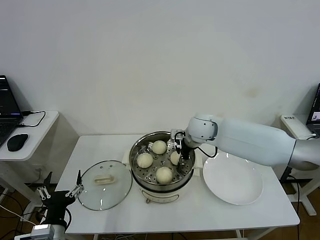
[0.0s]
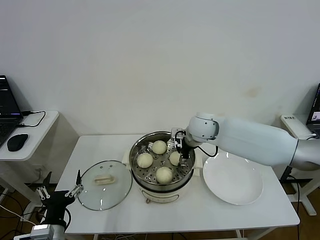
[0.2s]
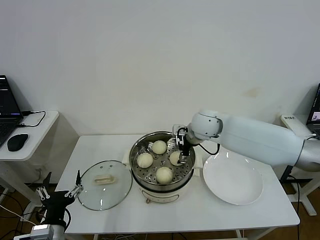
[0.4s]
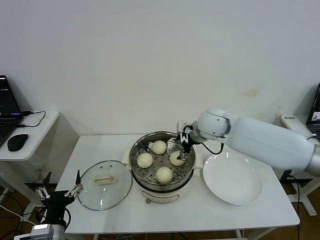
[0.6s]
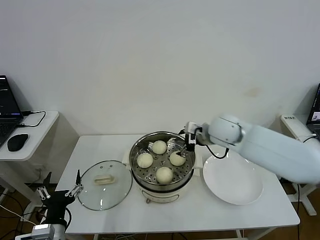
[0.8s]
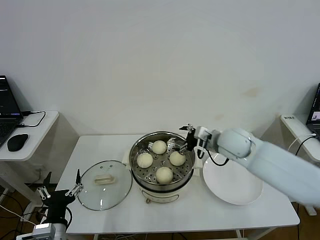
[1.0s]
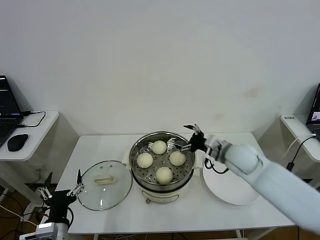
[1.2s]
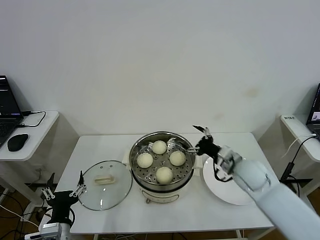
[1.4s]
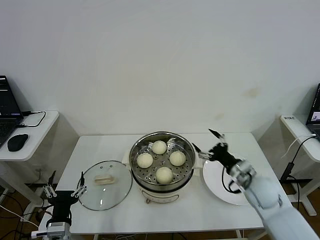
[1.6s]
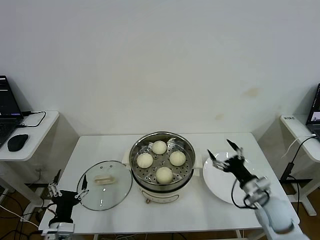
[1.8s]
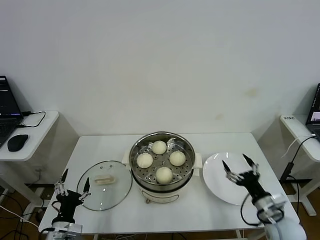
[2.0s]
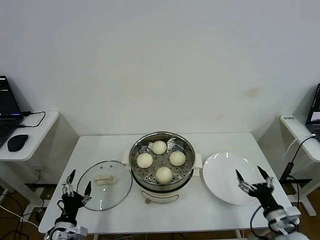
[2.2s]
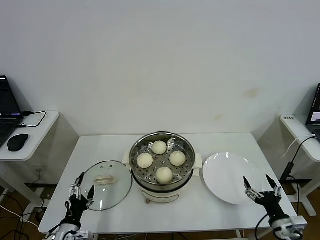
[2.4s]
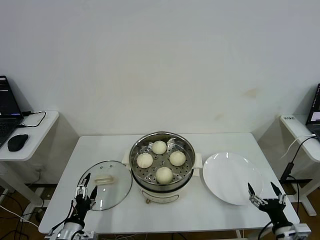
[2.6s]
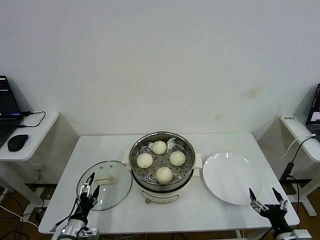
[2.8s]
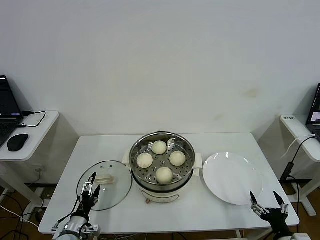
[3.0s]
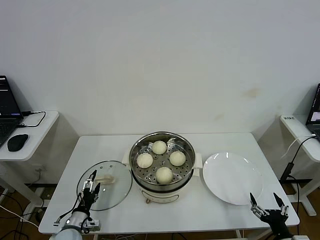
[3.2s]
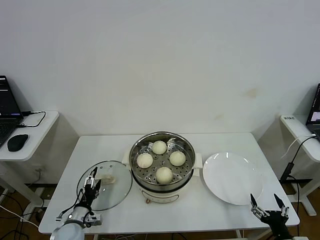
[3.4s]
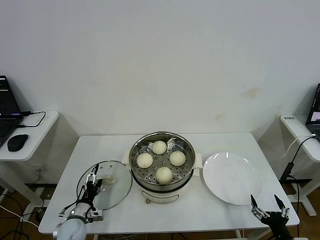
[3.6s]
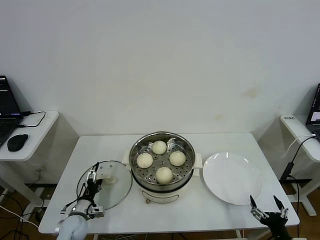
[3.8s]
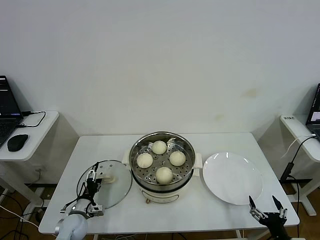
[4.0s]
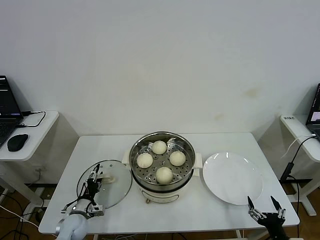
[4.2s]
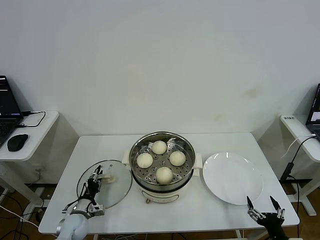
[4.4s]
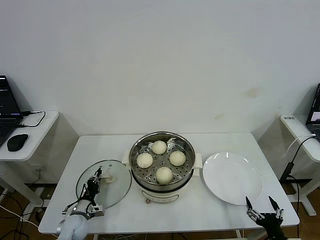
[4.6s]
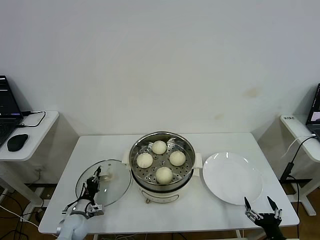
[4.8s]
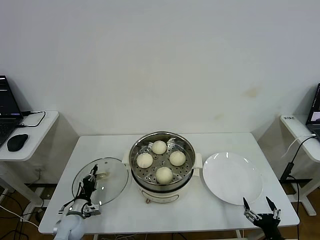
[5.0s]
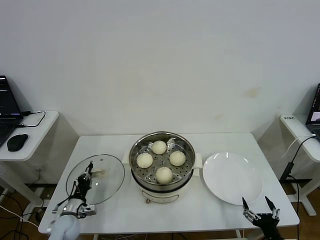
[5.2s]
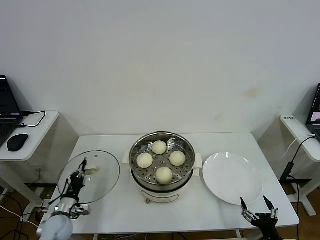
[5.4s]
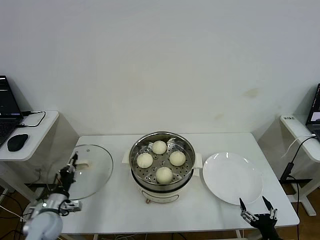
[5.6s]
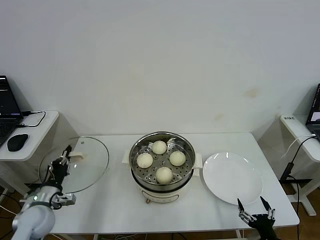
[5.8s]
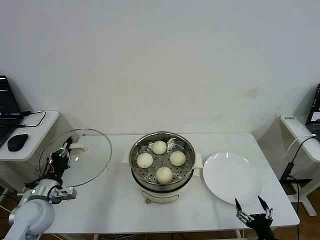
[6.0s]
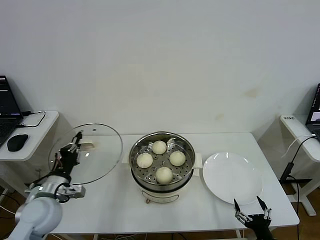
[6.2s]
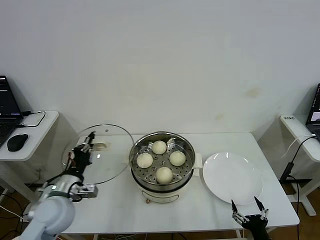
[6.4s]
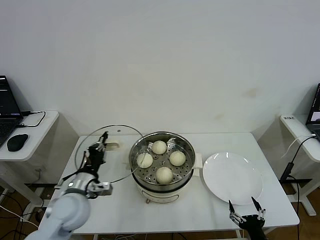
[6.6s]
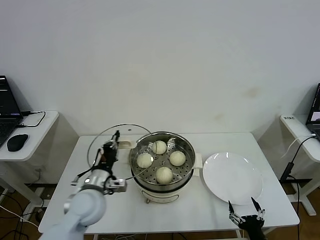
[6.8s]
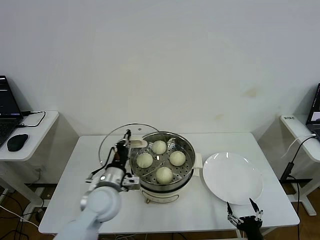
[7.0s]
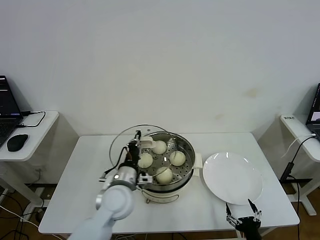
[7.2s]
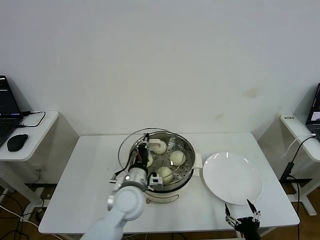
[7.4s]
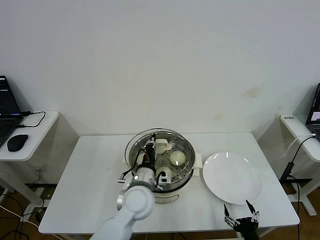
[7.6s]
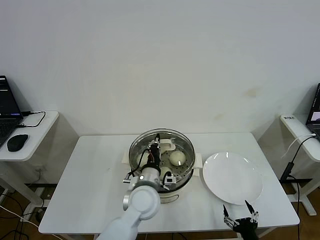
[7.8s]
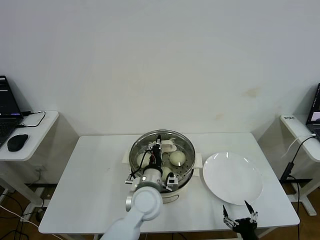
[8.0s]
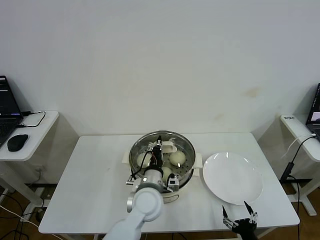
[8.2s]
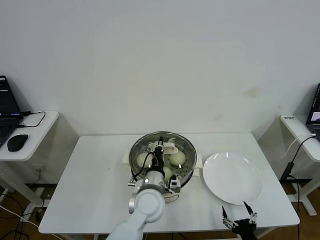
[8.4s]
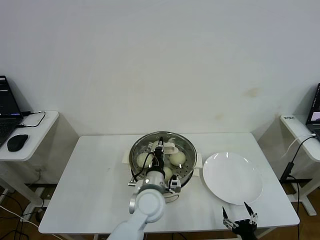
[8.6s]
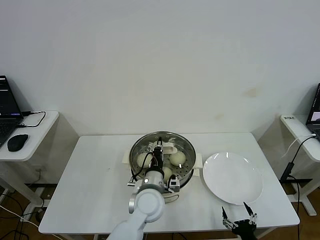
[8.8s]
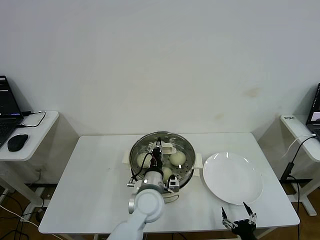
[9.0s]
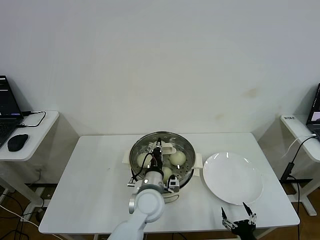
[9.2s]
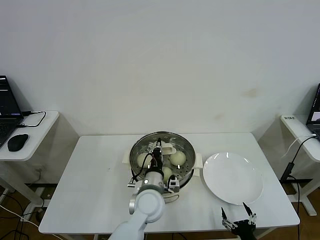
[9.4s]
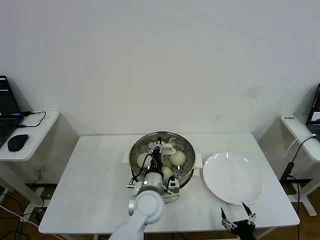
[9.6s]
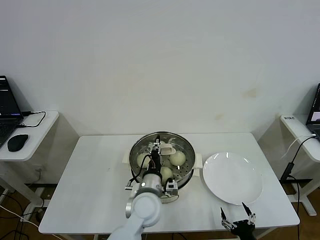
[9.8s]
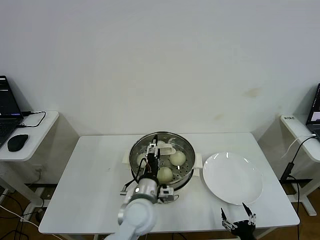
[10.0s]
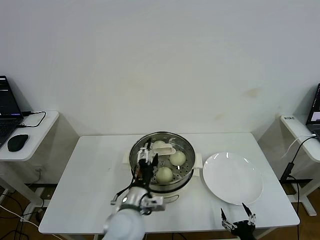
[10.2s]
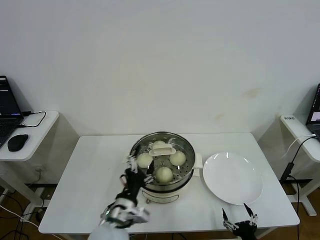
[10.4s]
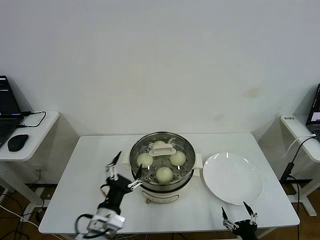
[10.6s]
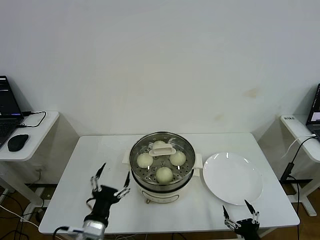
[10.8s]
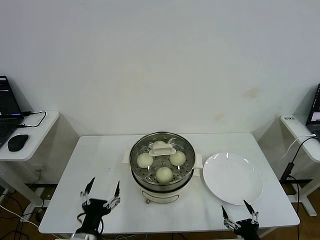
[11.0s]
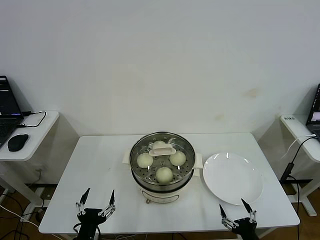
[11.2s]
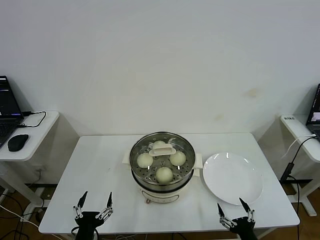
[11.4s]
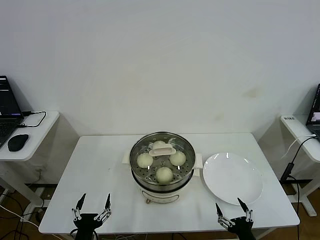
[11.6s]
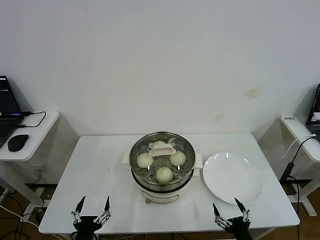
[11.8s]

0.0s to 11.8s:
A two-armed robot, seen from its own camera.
Step, 0.4s to 4.8s: Grasp the pot lid with left gripper.
Step, 5.0s to 9.8s: Place the pot lid on the steamer with left gripper.
0.0s to 1.4s: The right gripper travels to the right, backward and downward by roughly 20 cm, and opens.
1.4s to 3.0s: The left gripper shifts some 15 cm downward and forward, while the right gripper heads backward, downward and to the right, covering about 30 cm.
3.0s to 4.4s: The left gripper goes some 10 cm forward, and closes.
4.4s to 6.0s: The left gripper moves upward, about 15 cm, and closes up.
6.0s to 7.4s: The left gripper goes approximately 25 cm to the right.
7.4s to 8.8s: The left gripper shifts roughly 5 cm to the right.
8.8s to 10.4s: The left gripper is displaced backward and to the left by approximately 10 cm, and opens up.
10.4s to 11.8s: The left gripper moves to the left, backward and downward, approximately 20 cm.
